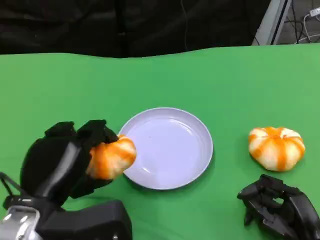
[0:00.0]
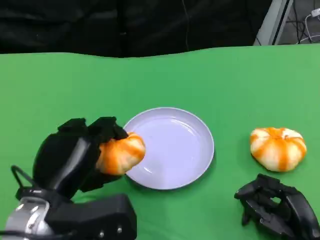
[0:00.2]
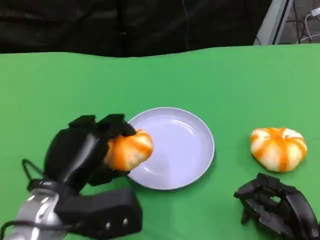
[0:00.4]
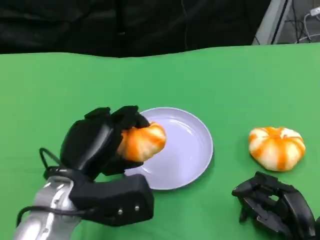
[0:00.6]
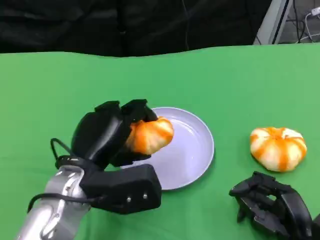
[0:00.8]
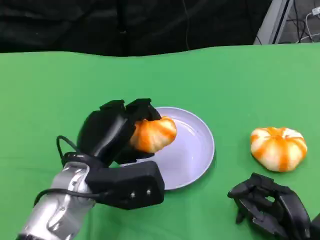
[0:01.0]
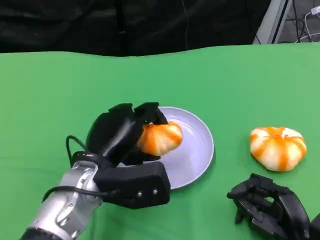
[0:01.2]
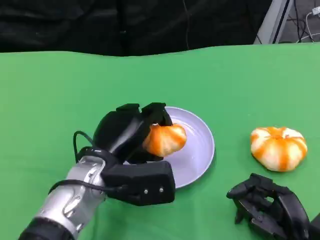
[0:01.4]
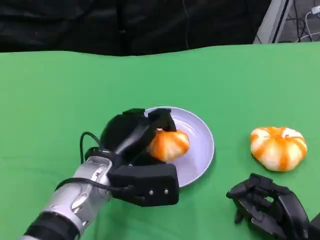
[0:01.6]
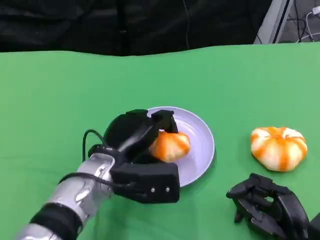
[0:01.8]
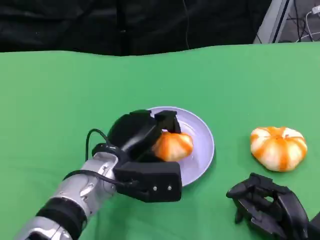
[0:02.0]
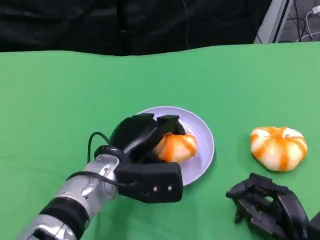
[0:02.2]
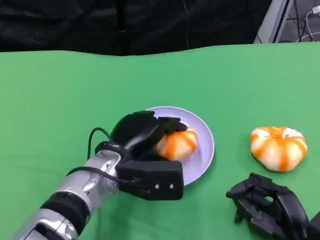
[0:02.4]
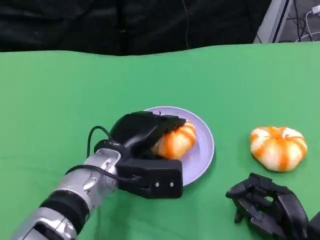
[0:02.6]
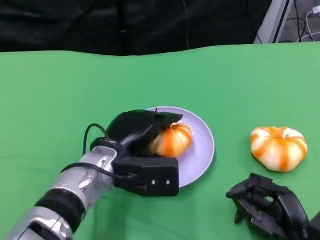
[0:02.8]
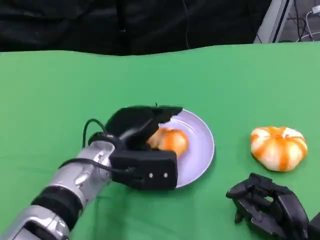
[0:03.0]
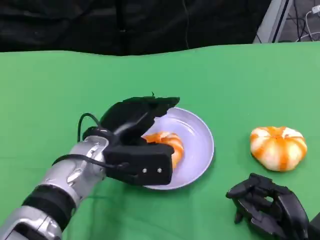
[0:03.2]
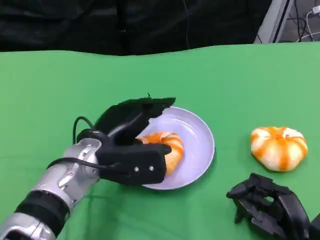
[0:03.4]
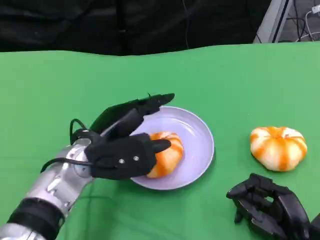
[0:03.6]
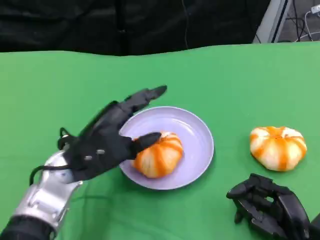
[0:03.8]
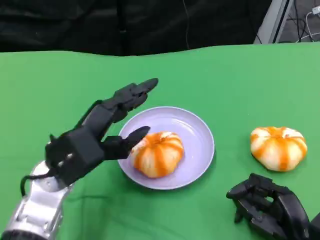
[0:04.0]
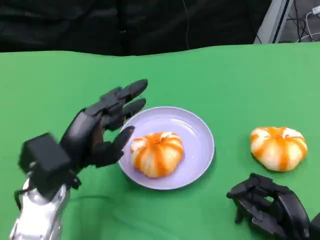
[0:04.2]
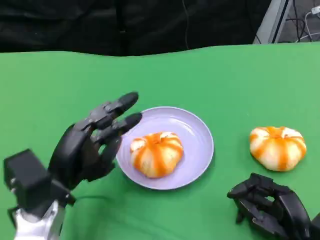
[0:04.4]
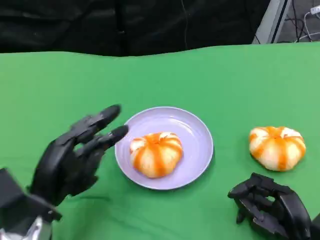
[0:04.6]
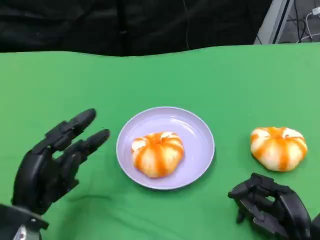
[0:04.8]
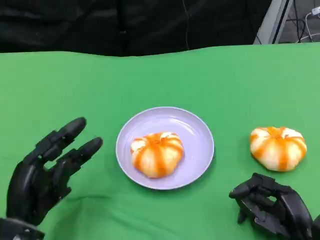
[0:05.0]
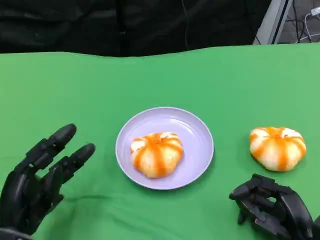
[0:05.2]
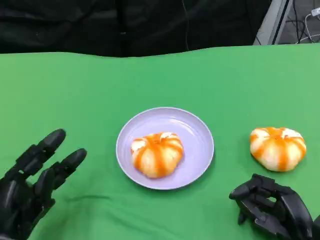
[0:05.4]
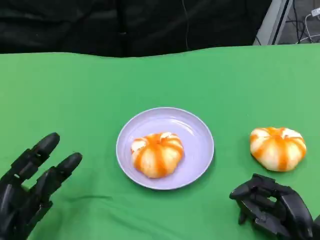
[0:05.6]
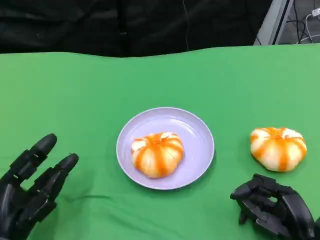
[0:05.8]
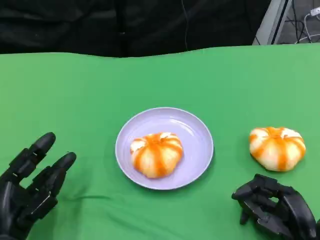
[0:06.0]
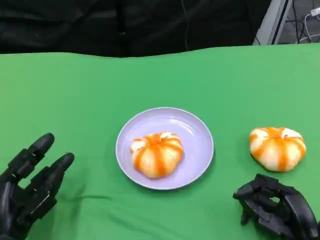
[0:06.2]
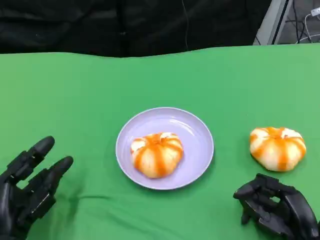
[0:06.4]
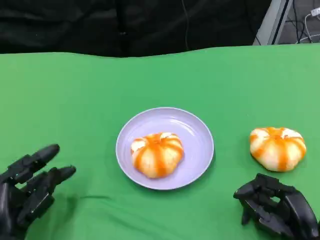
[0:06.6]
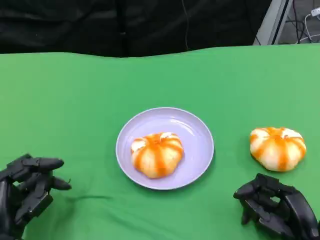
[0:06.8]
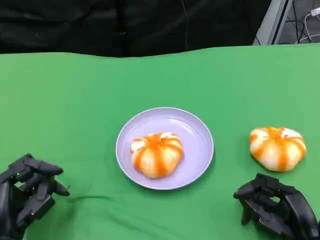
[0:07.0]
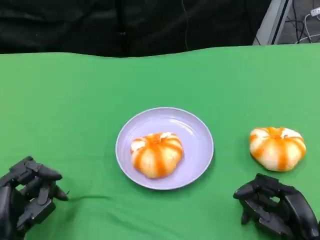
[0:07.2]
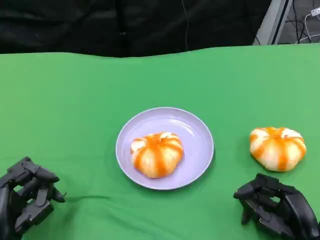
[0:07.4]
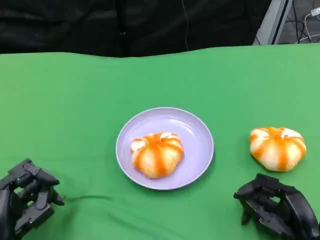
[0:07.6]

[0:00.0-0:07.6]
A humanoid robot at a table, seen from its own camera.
Task of the whole recording: Grasp the bread from the table and place it into the plate.
0:00.0 to 0:01.6: The left hand goes roughly 10 cm forward and to the right.
0:01.6 to 0:03.0: The hands make only small movements.
0:03.0 to 0:04.6: The left hand moves to the left and backward, about 15 cm.
0:04.6 to 0:06.0: The left hand moves about 5 cm.
0:06.0 to 0:07.6: There are only small adjustments of the hands.

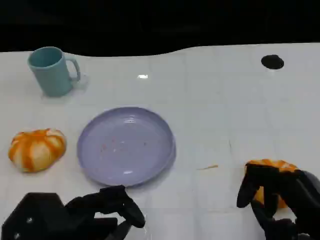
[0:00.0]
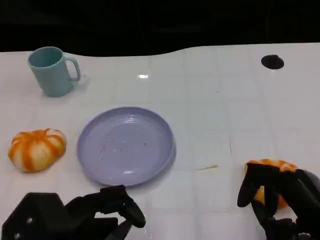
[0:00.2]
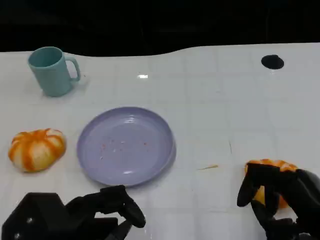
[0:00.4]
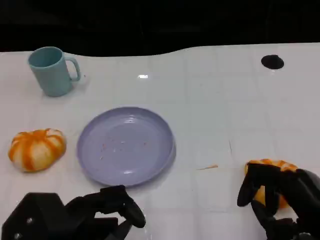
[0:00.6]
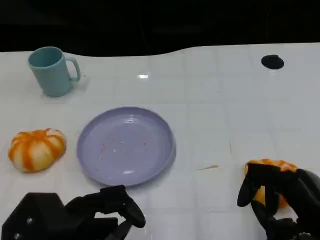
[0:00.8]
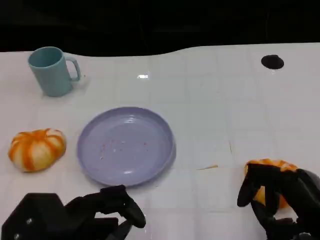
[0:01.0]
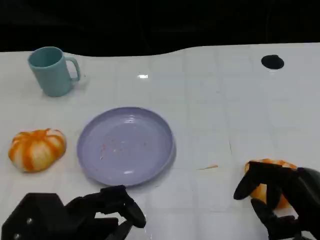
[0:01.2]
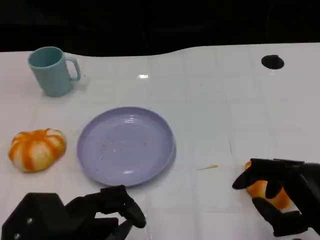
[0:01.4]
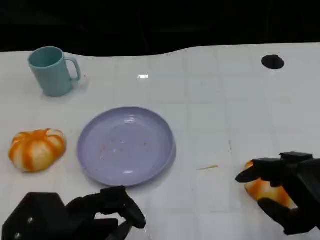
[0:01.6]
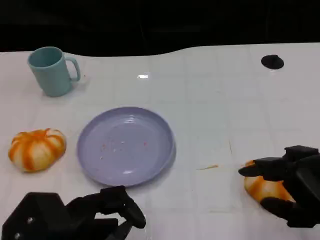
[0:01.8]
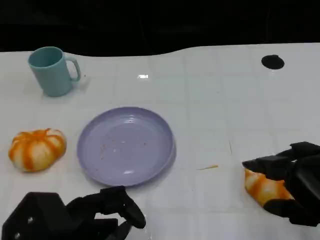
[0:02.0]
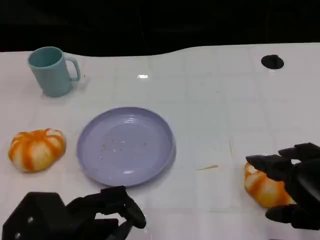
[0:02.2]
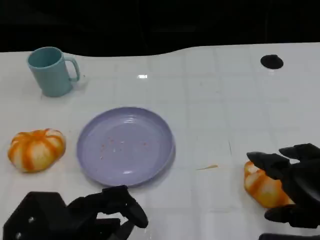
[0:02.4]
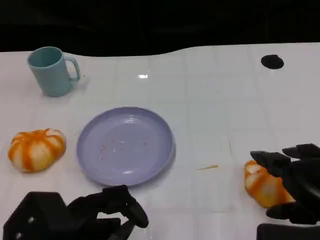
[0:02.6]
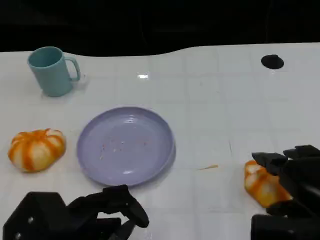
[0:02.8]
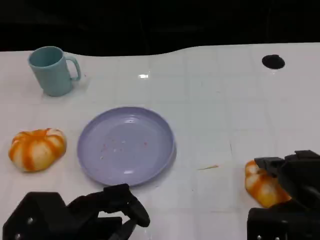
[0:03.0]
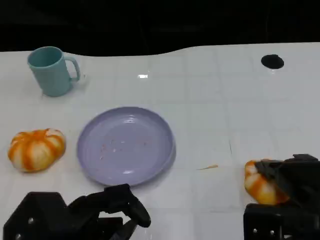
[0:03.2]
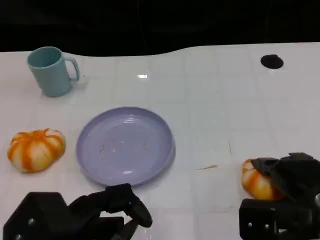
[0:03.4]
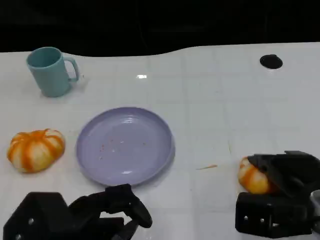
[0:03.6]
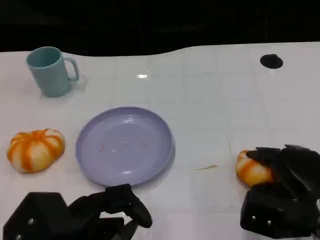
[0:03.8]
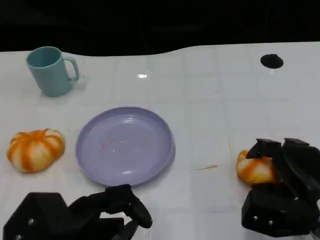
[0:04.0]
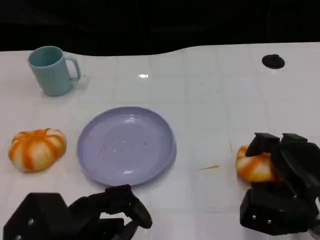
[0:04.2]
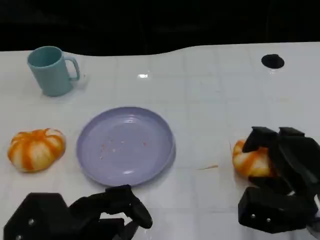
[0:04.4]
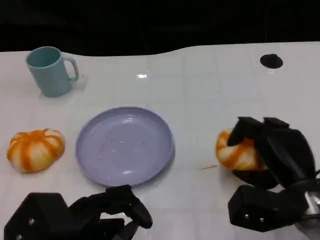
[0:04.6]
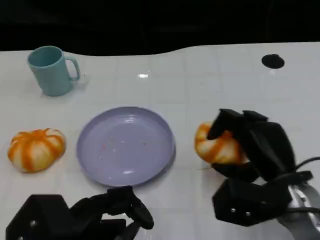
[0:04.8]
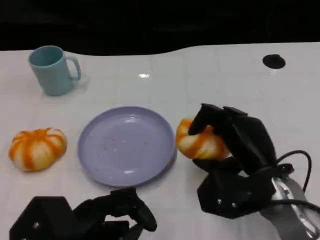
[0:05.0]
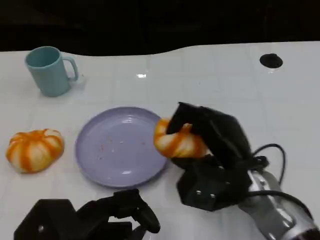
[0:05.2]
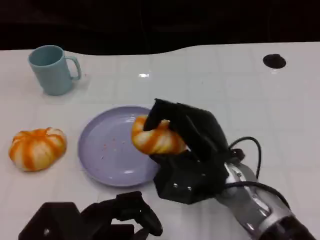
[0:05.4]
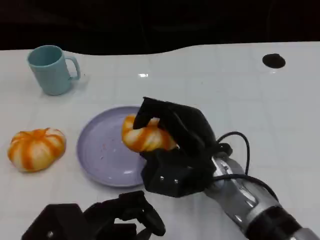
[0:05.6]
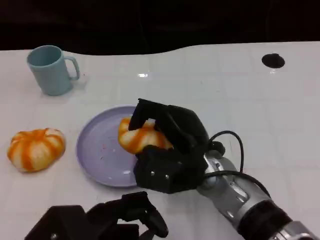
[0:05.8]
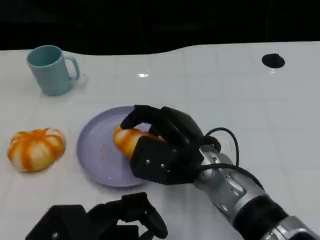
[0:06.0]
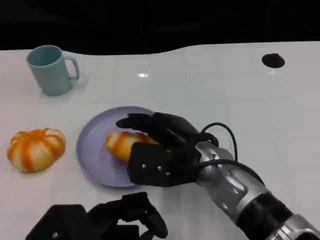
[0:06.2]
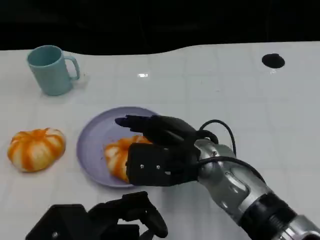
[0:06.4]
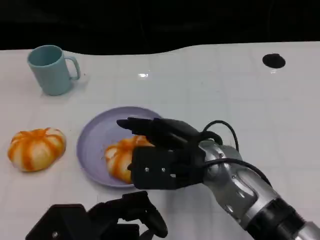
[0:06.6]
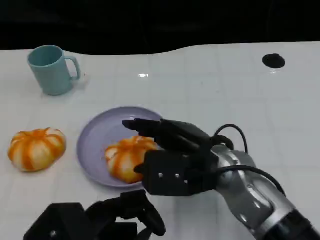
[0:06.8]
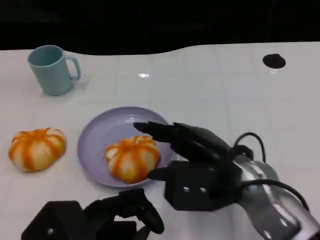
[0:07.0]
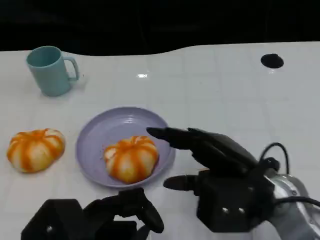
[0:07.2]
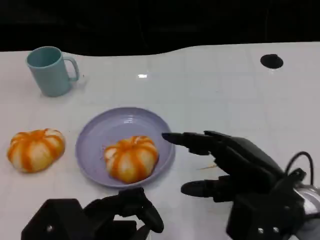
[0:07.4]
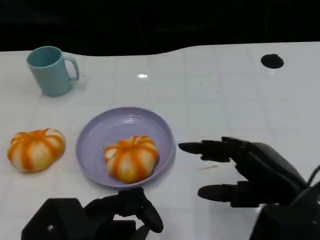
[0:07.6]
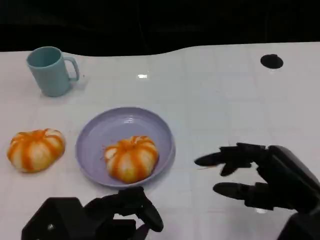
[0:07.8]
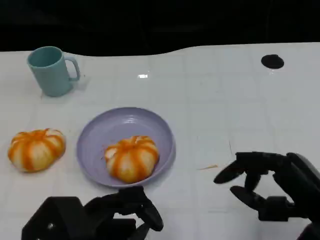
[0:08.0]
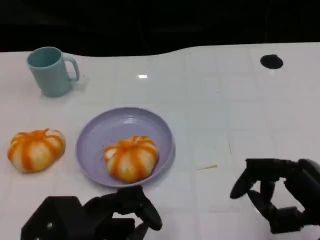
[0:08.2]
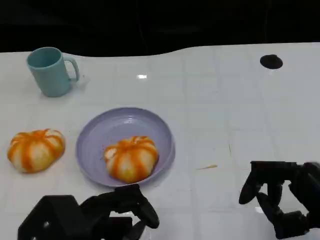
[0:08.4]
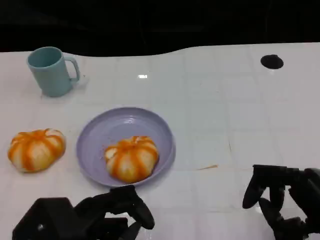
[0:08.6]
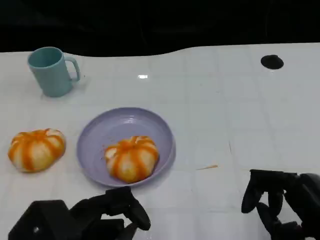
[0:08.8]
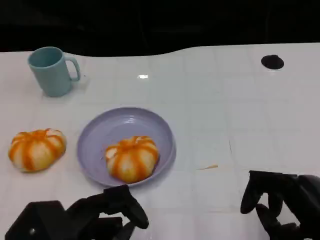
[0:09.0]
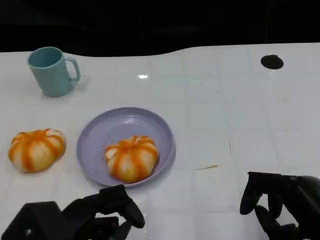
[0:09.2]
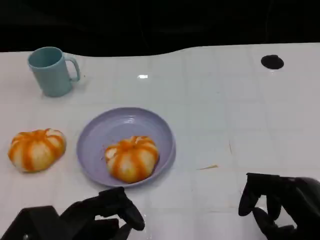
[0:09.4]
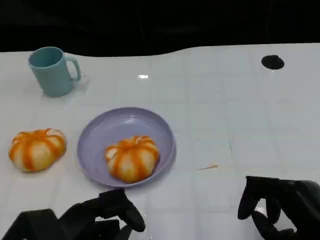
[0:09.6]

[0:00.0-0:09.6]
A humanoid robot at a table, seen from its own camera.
Task of the whole recording: Grasp the bread from the table and place it into the plate.
0:01.6 to 0:03.2: The right hand travels forward by roughly 5 cm.
0:03.2 to 0:04.8: The right hand shifts about 5 cm to the left.
0:04.8 to 0:06.4: The right hand goes about 10 cm to the left.
0:06.4 to 0:08.0: The right hand moves to the right and backward, about 20 cm.
0:08.0 to 0:09.6: The hands stay close to where they were, moving slightly.

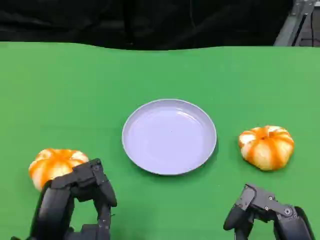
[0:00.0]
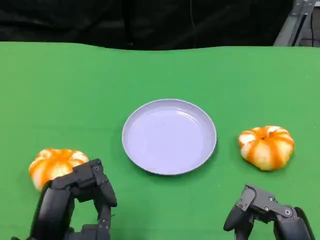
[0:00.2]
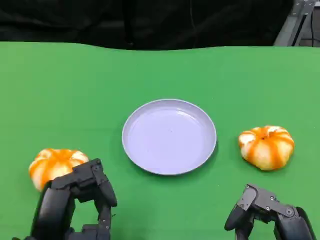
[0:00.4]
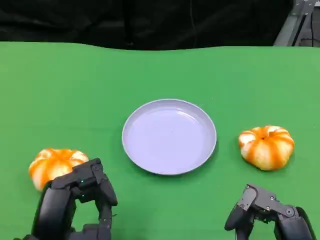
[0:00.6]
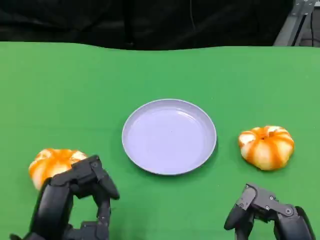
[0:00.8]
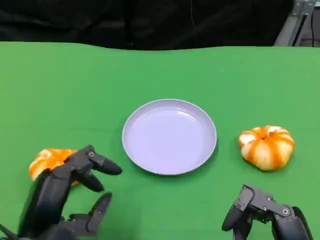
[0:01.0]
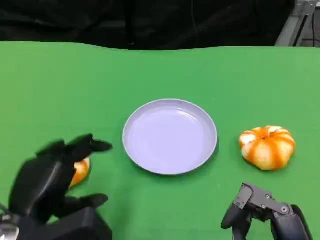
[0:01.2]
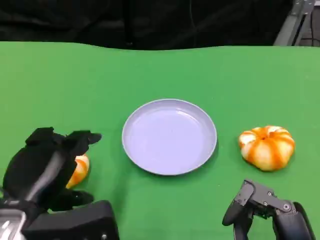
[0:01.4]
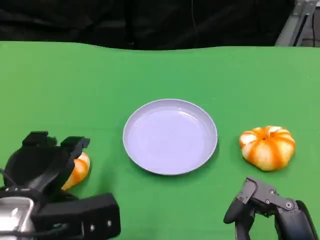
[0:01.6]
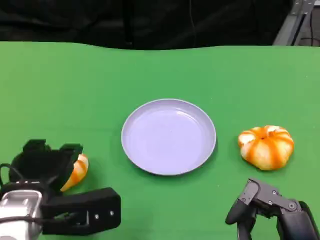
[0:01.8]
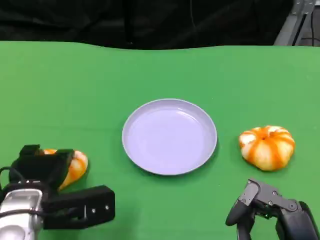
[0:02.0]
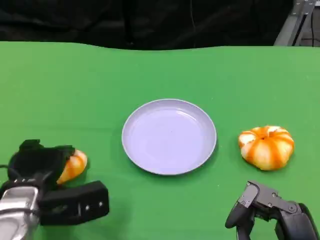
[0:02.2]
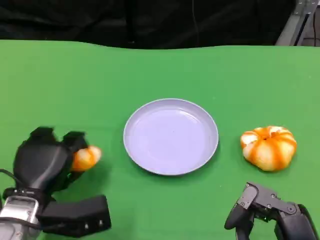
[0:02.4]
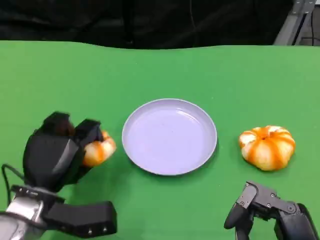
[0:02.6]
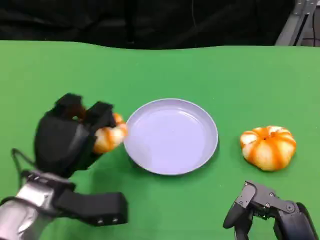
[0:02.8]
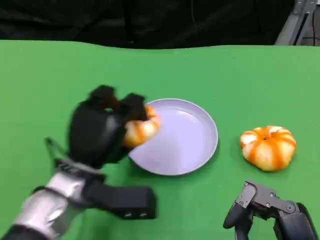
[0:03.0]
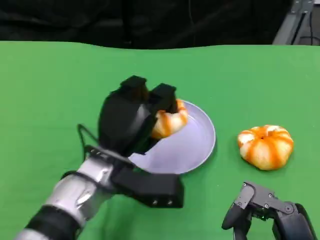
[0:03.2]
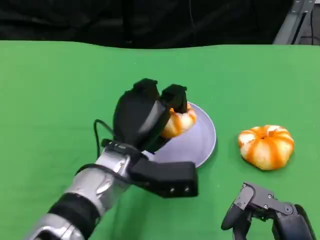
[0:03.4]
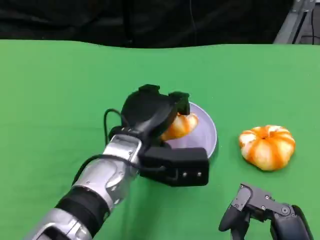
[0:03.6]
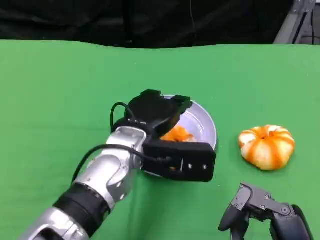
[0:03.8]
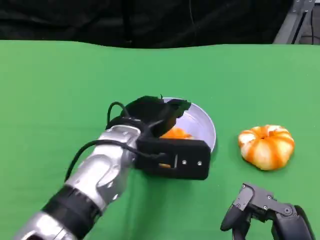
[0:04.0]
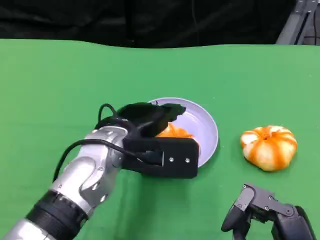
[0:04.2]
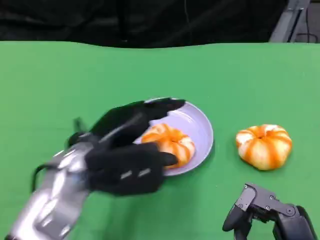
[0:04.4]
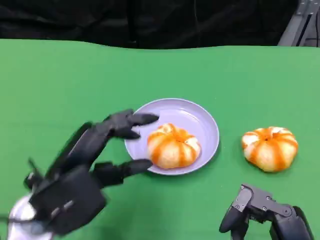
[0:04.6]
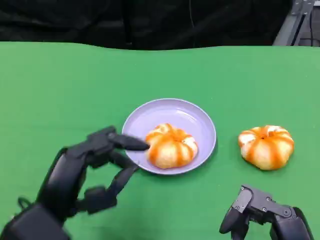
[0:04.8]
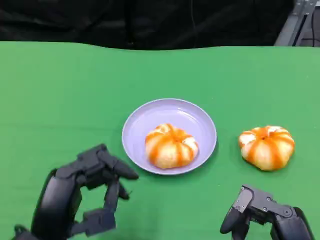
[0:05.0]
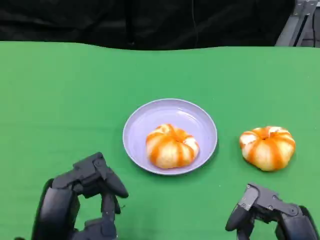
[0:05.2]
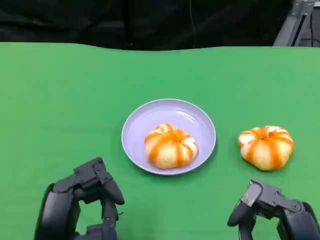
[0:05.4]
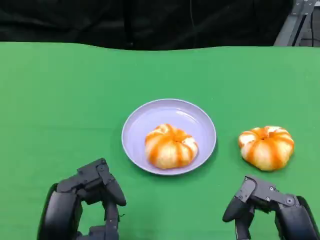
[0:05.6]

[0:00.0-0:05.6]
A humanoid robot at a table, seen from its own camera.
Task of the whole recording: Grasp the bread from the table and place it into the plate.
0:00.0 to 0:01.4: The left hand moves about 5 cm.
0:01.4 to 0:02.8: The left hand heads forward and downward, covering some 10 cm.
0:02.8 to 0:04.2: The left hand goes approximately 10 cm to the right and upward.
0:04.2 to 0:05.6: The left hand is displaced backward and to the left by approximately 15 cm.
